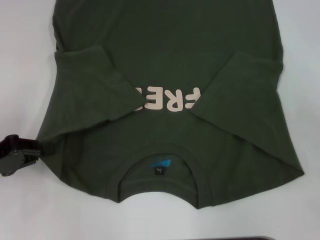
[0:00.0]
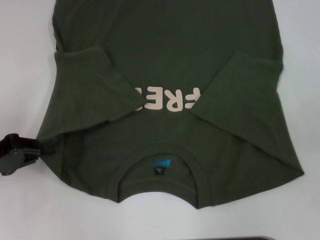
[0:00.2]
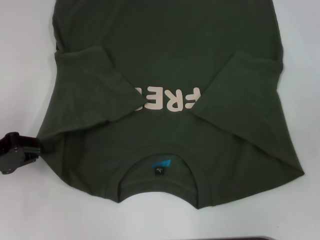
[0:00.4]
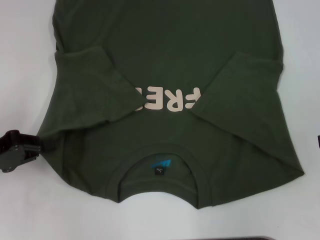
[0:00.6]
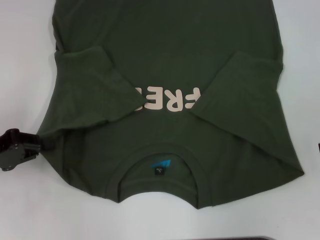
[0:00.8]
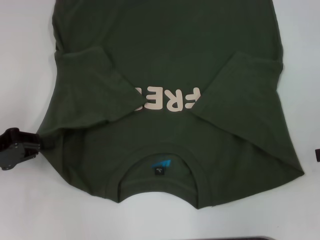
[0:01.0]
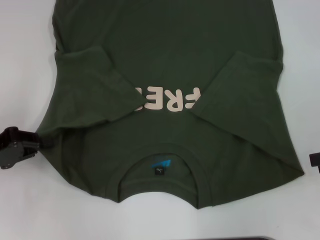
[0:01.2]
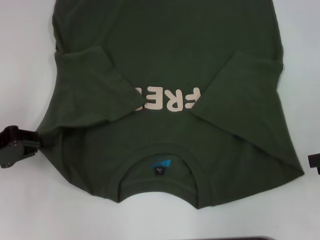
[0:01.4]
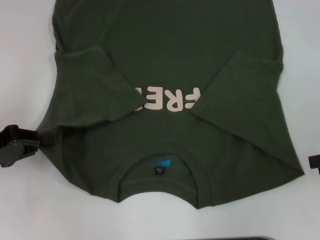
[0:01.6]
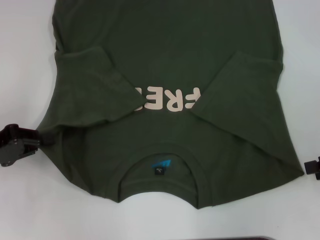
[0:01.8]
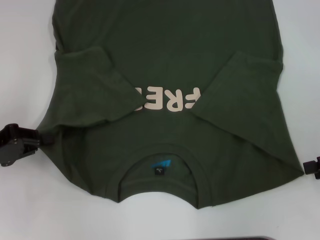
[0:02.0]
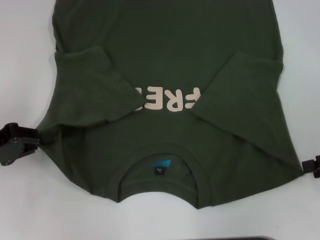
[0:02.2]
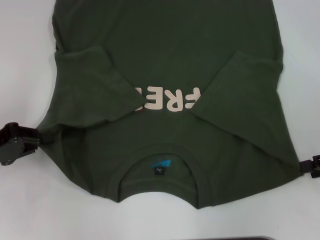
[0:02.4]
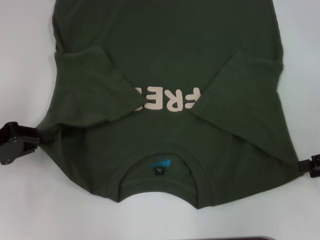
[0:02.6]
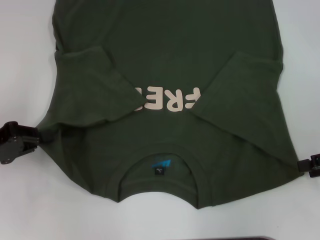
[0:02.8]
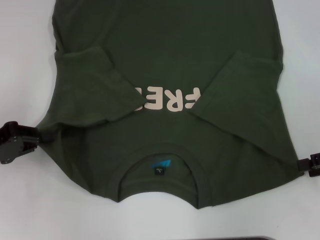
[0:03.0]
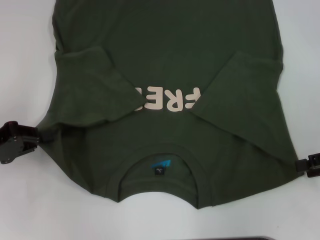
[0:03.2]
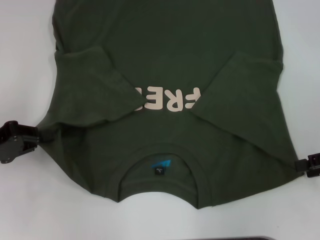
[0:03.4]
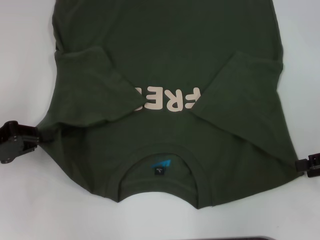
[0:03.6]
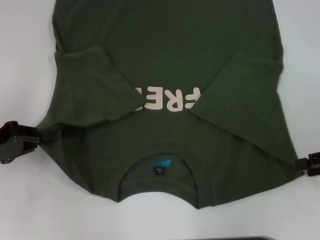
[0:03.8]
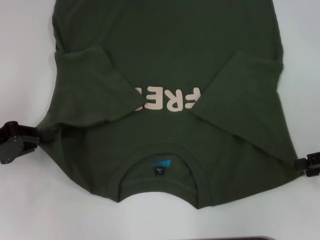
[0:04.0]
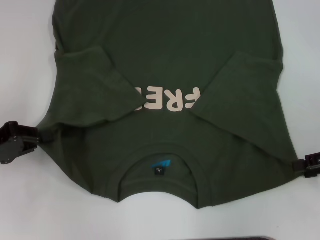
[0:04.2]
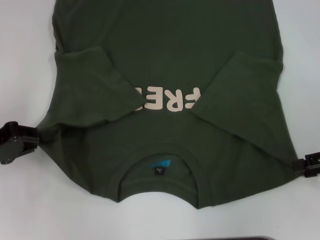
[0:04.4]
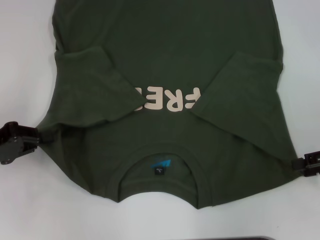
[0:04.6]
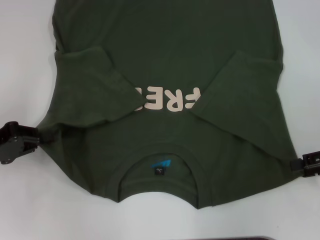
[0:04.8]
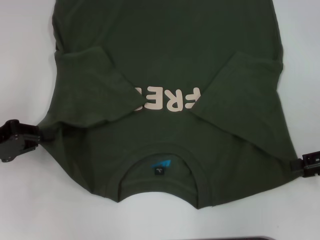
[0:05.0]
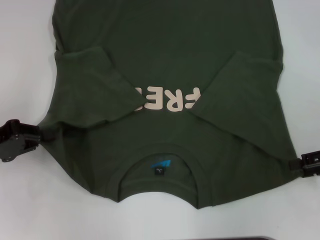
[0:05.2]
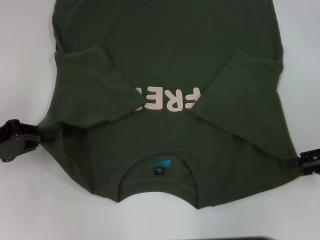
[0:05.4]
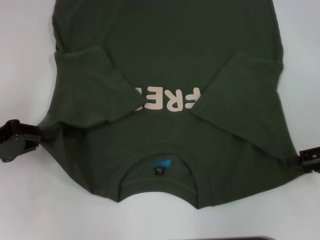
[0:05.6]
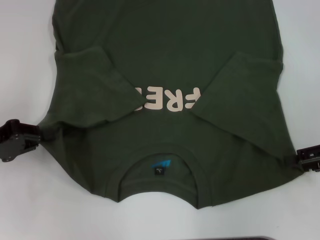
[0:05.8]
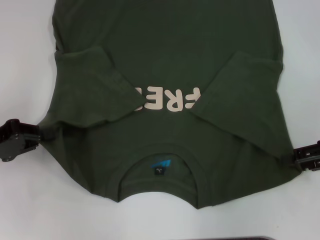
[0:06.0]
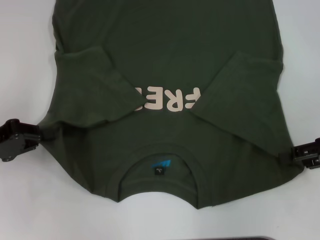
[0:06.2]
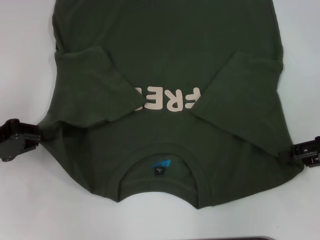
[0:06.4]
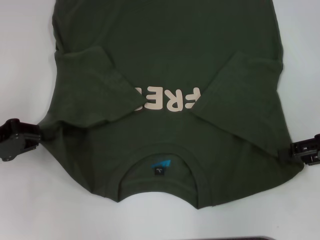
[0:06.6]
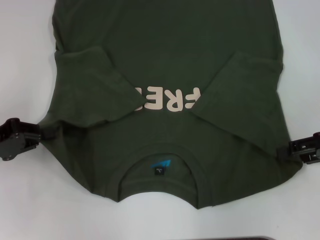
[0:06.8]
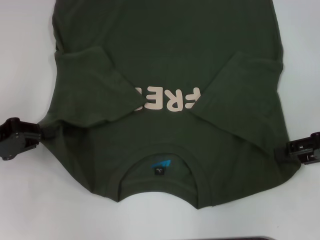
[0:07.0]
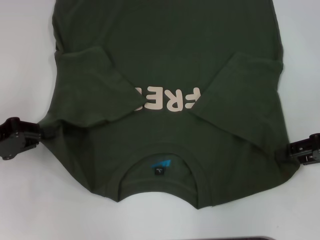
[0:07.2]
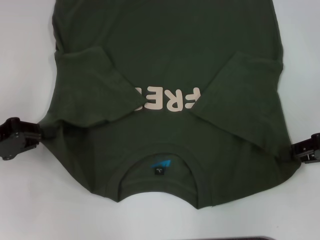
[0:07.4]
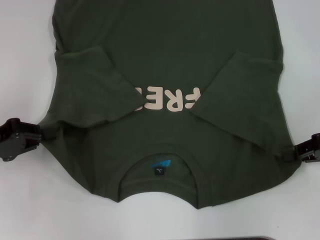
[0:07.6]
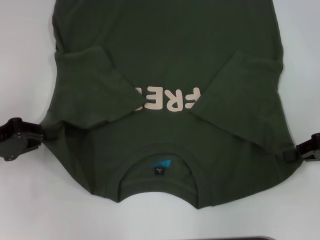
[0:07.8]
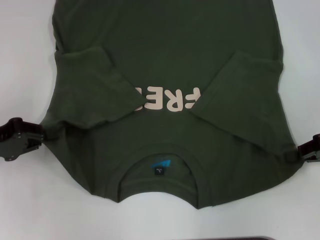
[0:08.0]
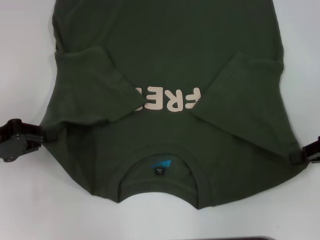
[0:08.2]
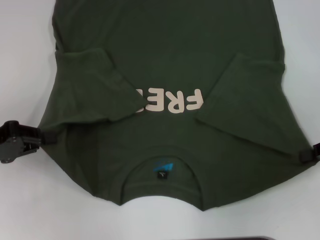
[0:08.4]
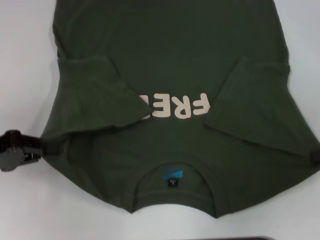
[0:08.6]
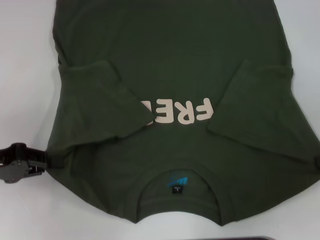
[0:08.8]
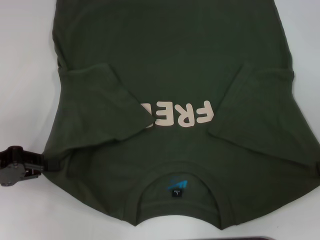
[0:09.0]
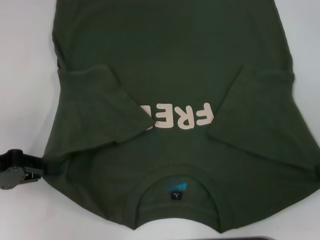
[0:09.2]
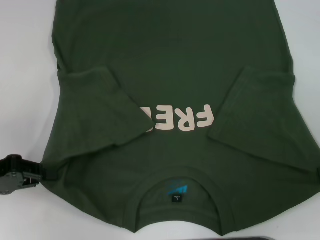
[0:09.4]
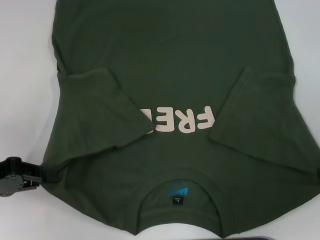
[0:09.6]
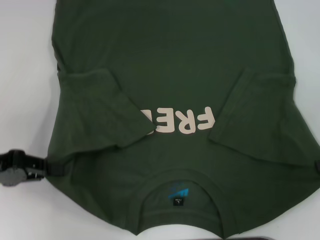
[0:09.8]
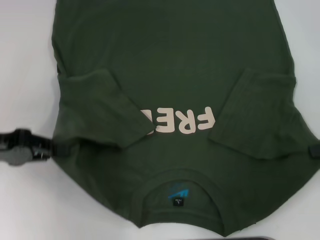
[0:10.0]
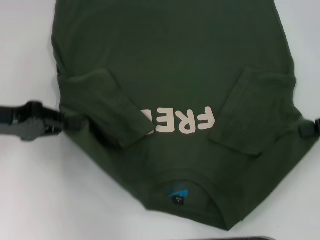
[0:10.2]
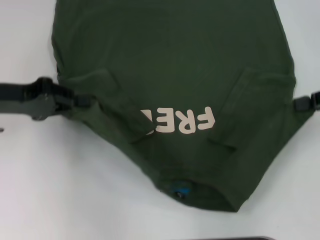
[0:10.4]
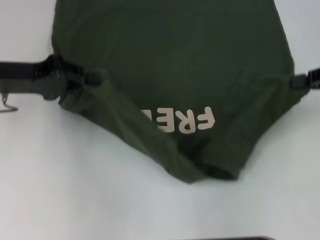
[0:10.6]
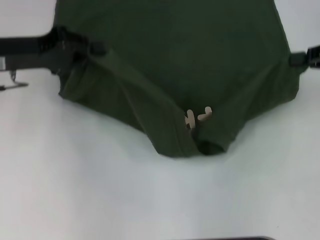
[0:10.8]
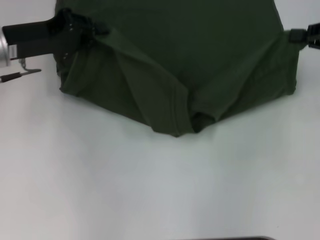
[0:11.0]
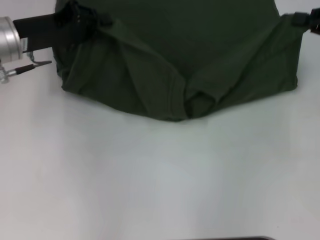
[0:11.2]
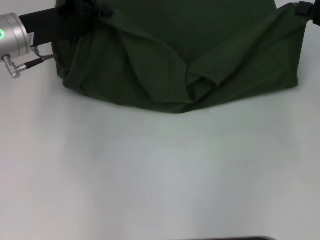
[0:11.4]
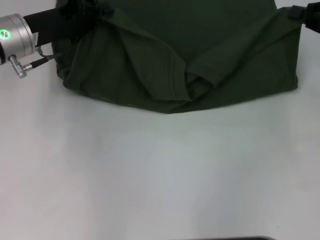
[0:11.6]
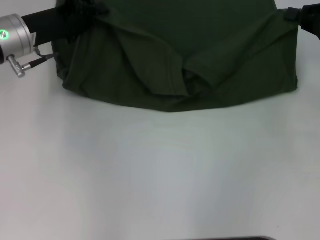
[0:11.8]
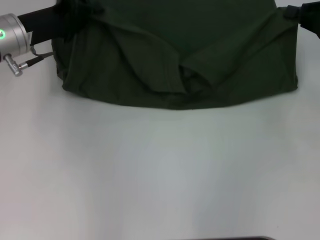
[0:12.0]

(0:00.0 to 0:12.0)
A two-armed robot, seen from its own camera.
0:01.6 - 0:03.0: The grippers stay close to where they were, moving slightly.
0:03.0 - 0:04.4: Neither gripper changes place.
0:04.4 - 0:06.0: The grippers stay close to where they were, moving slightly.
0:06.0 - 0:07.6: Both grippers stay put.
0:07.6 - 0:09.0: The right gripper moves roughly 5 cm, and closes its fingers.
0:09.0 - 0:10.4: The grippers both shift forward by approximately 5 cm.
0:10.4 - 0:12.0: The right gripper shifts some 5 cm forward. Meanwhile the left gripper moves forward and to the right, approximately 10 cm.

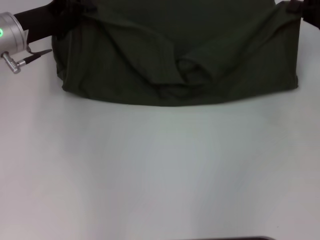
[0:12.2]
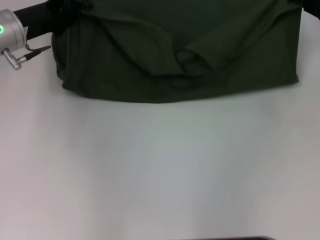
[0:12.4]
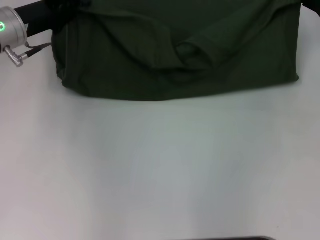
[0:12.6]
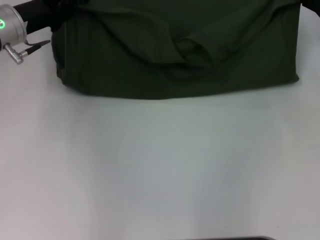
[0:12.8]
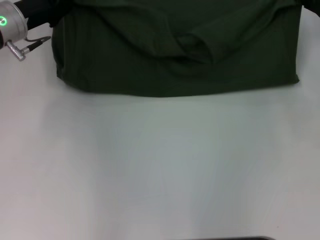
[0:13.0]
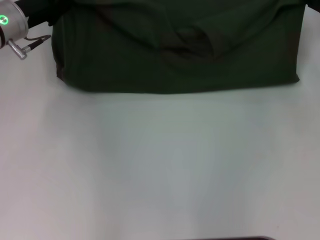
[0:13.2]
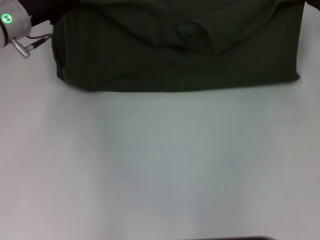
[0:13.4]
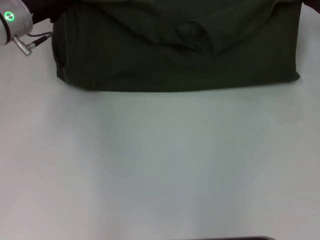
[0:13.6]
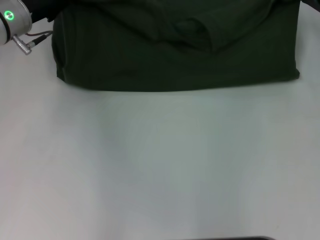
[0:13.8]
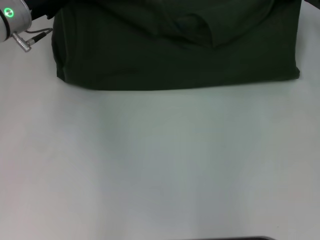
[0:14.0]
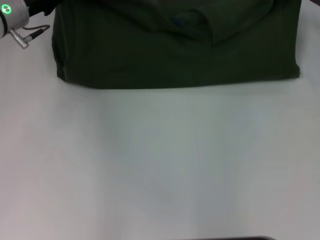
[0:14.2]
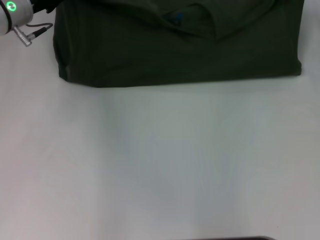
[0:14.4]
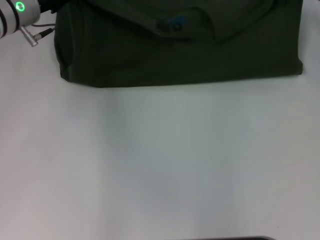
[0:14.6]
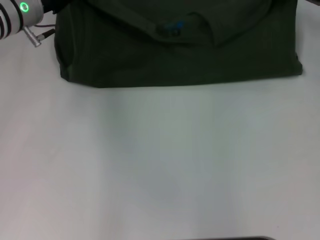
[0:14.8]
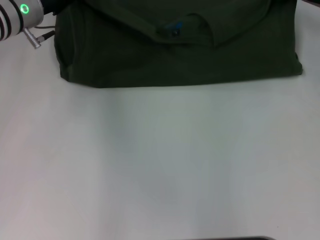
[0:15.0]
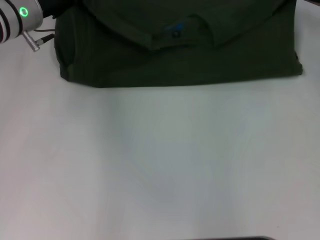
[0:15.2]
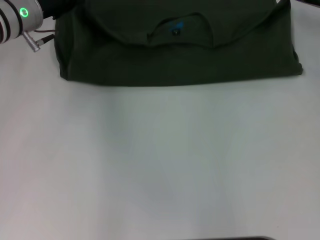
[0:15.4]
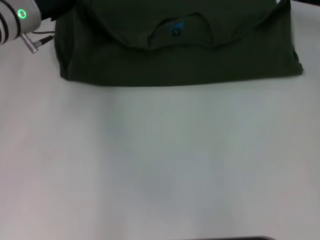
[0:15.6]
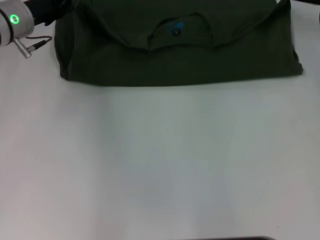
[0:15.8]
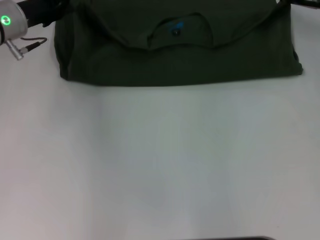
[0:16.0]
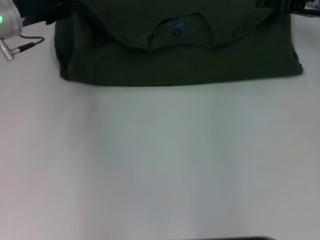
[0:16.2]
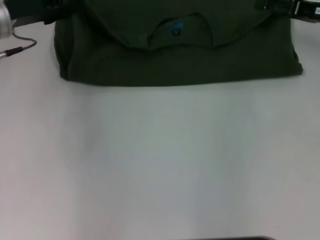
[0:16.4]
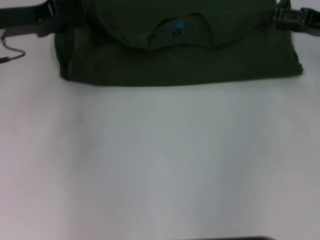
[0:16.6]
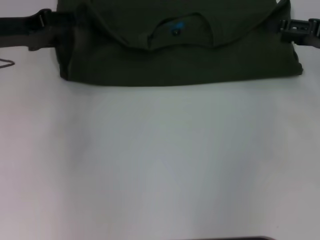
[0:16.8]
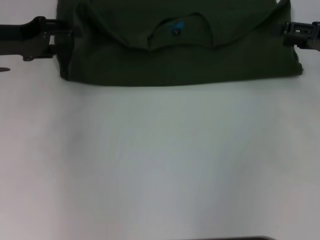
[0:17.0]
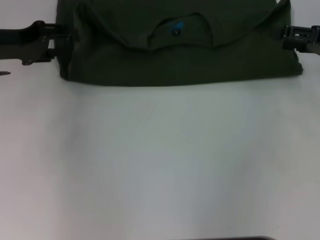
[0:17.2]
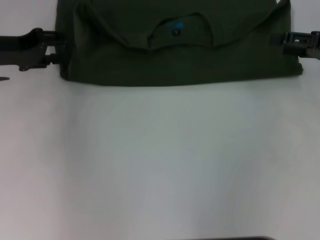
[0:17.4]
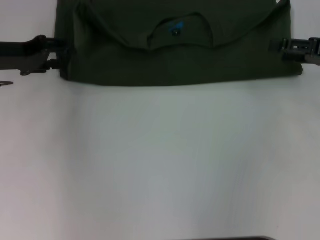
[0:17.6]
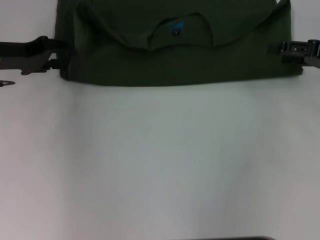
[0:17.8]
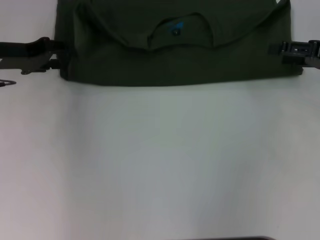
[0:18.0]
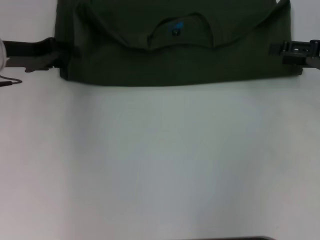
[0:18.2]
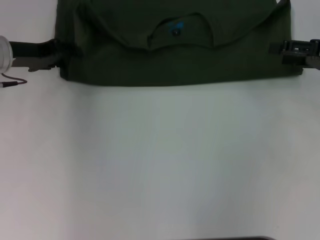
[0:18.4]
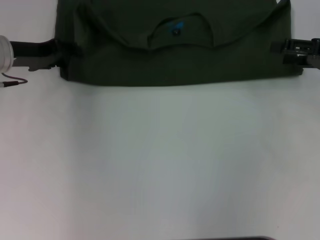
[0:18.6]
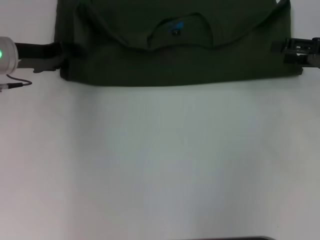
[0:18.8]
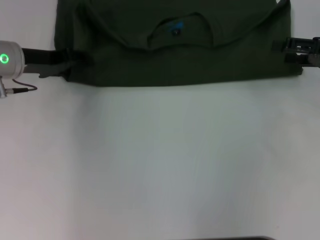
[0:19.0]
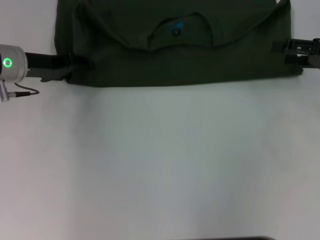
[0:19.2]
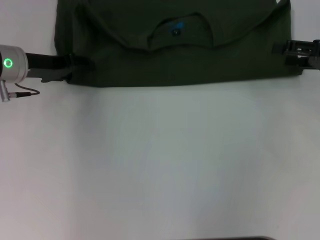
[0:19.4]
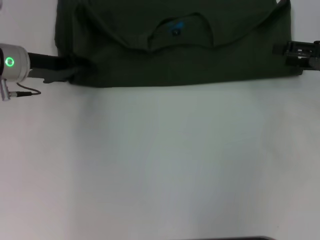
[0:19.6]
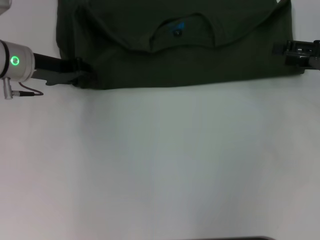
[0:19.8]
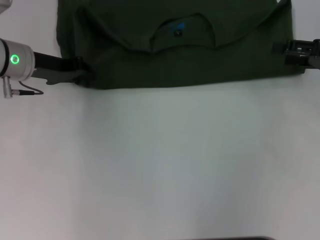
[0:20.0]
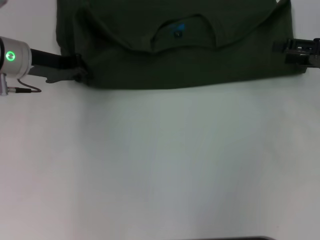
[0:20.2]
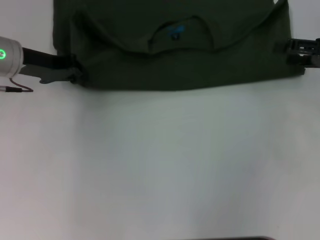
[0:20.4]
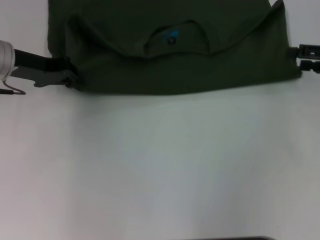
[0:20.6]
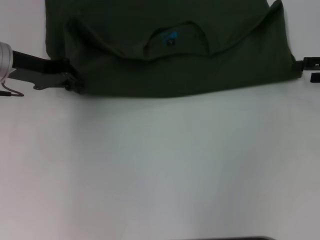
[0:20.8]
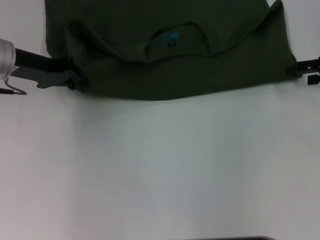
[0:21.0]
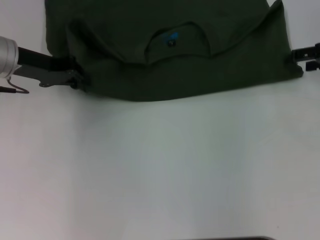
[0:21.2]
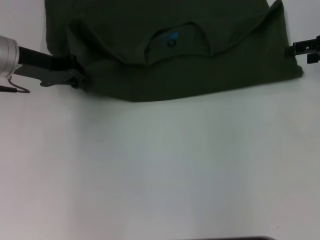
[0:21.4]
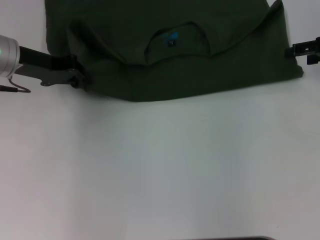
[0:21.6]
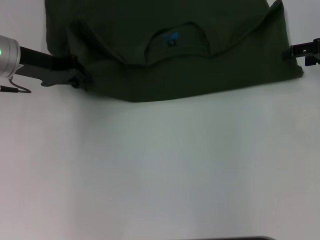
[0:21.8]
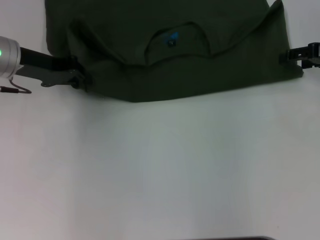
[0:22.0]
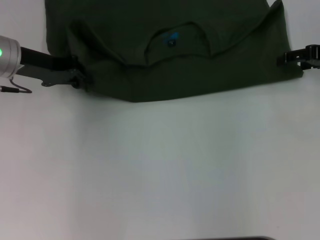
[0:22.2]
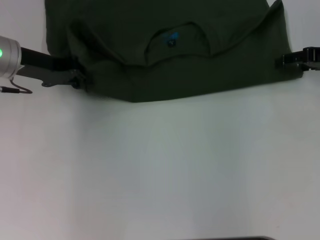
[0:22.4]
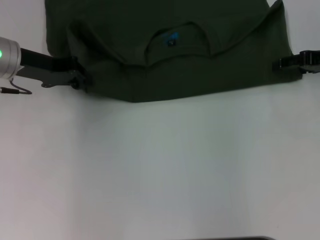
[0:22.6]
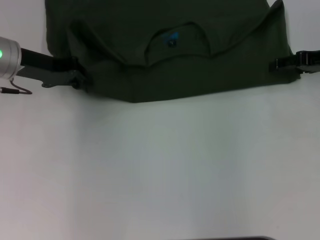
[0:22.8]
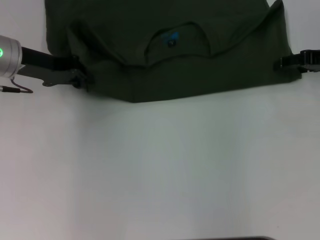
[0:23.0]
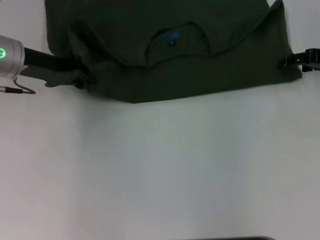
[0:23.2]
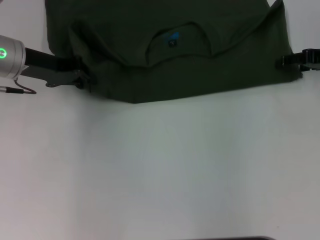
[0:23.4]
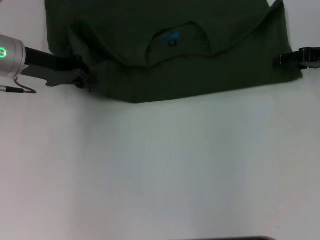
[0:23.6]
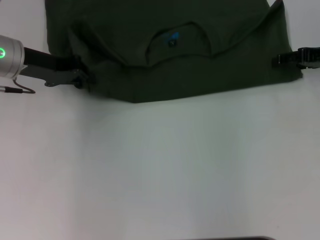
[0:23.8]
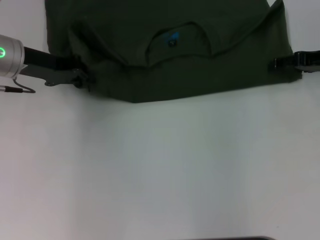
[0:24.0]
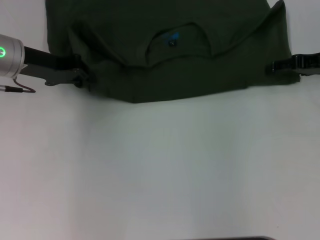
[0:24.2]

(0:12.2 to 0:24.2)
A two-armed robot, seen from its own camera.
Step, 0:12.2 - 0:16.0: Fold the clothes with your left hand.
Step, 0:12.2 - 0:16.0: Fold the clothes with your right hand.
0:12.2 - 0:13.8: The right gripper moves some 5 cm.
0:13.8 - 0:15.2: There are only small adjustments of the grippers.
0:15.2 - 0:16.6: The right gripper moves backward, roughly 5 cm, and opens up. Meanwhile the left gripper shifts approximately 5 cm to the left, and opens up.
0:18.2 - 0:19.8: There are only small adjustments of the grippers.
0:19.8 - 0:21.2: The left gripper closes.
0:21.2 - 0:22.6: The grippers move only a little.
0:22.6 - 0:24.2: Neither gripper changes place.
